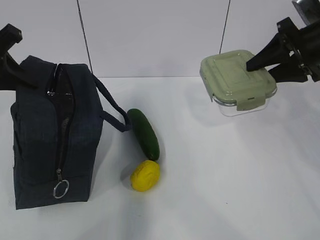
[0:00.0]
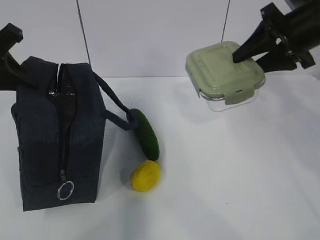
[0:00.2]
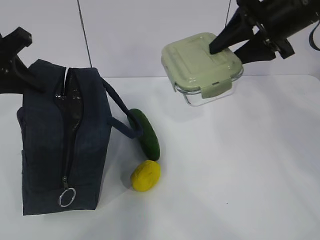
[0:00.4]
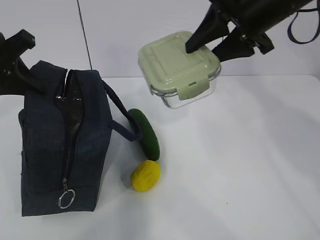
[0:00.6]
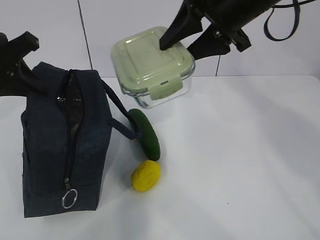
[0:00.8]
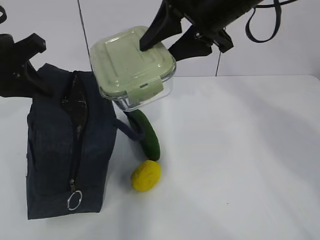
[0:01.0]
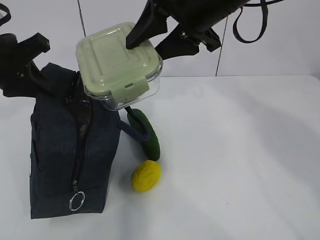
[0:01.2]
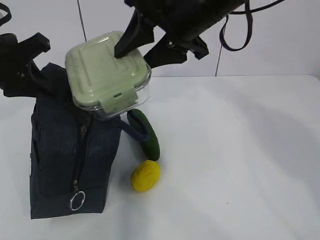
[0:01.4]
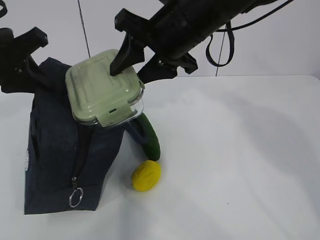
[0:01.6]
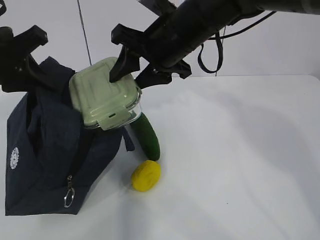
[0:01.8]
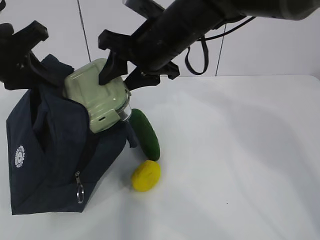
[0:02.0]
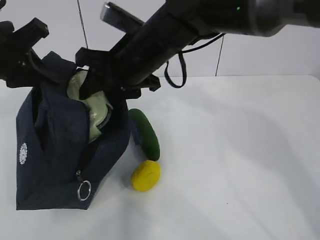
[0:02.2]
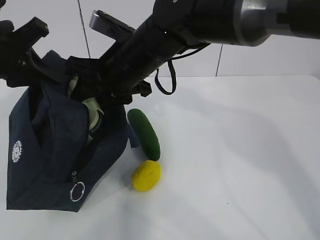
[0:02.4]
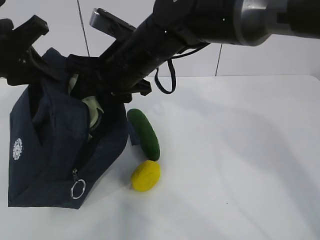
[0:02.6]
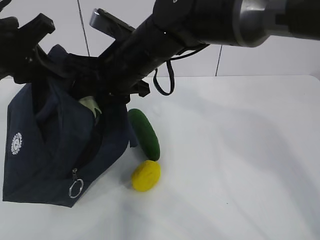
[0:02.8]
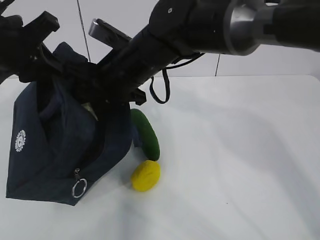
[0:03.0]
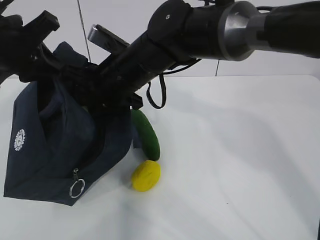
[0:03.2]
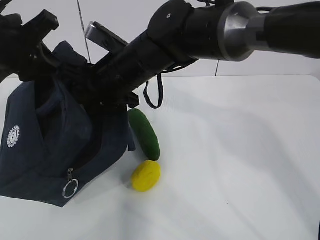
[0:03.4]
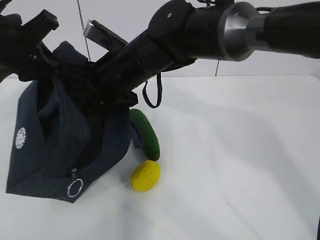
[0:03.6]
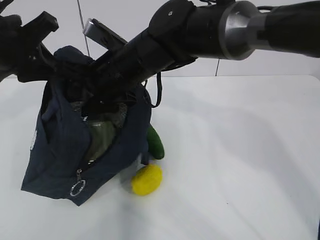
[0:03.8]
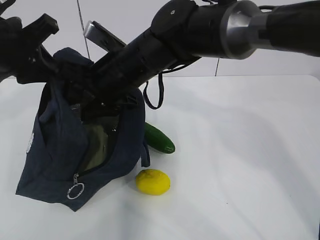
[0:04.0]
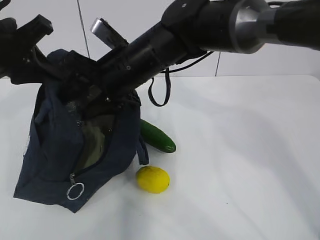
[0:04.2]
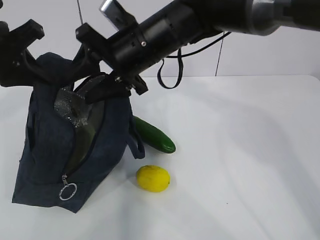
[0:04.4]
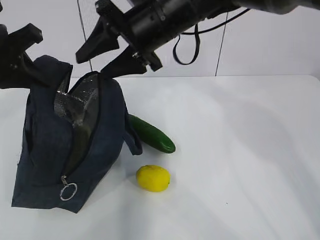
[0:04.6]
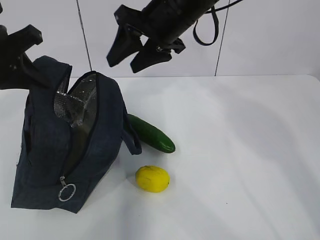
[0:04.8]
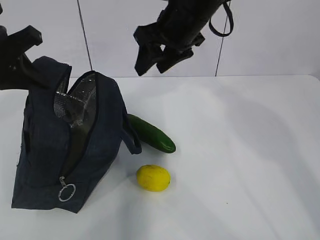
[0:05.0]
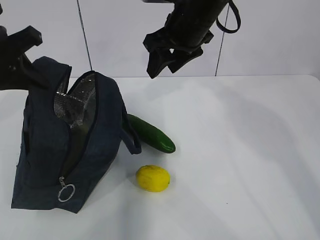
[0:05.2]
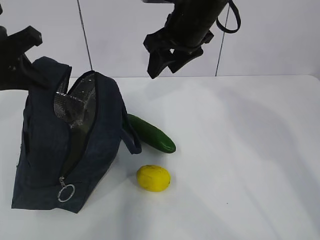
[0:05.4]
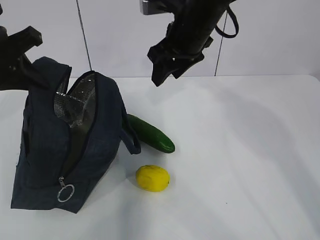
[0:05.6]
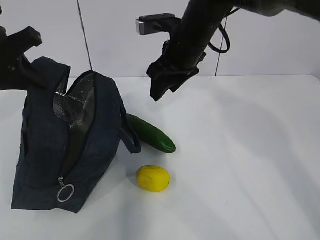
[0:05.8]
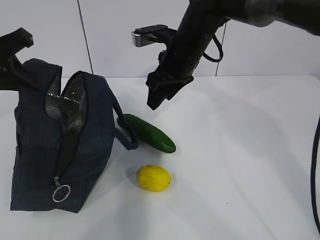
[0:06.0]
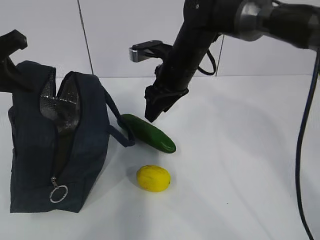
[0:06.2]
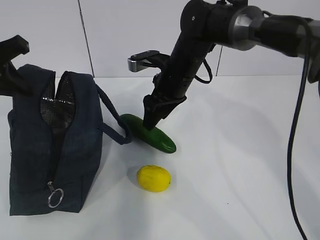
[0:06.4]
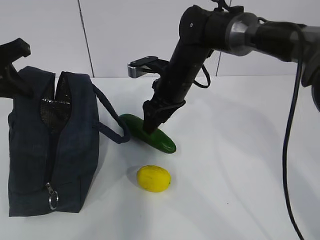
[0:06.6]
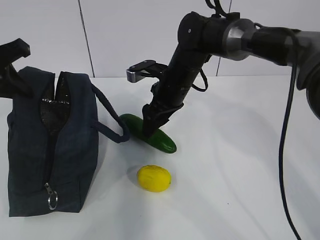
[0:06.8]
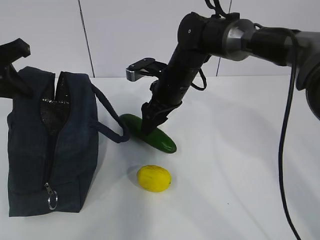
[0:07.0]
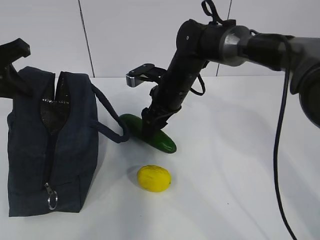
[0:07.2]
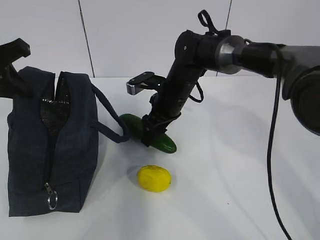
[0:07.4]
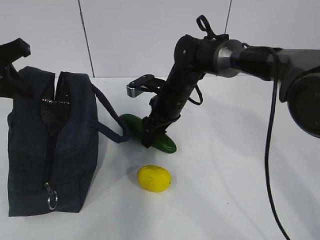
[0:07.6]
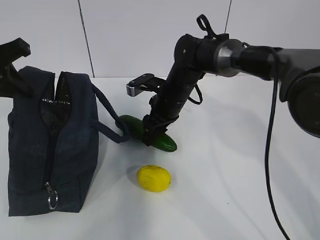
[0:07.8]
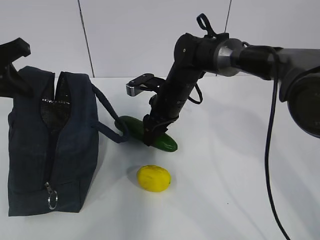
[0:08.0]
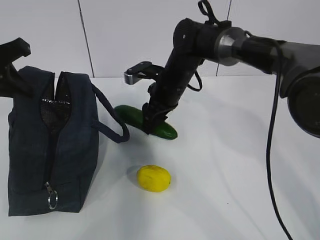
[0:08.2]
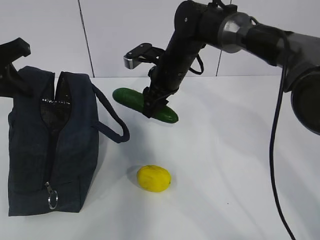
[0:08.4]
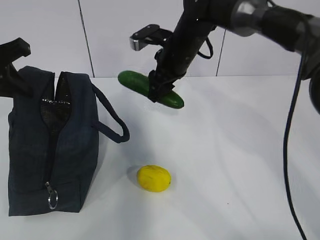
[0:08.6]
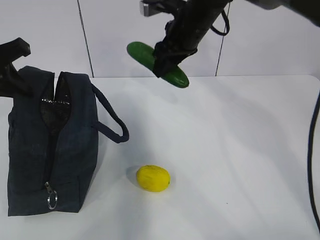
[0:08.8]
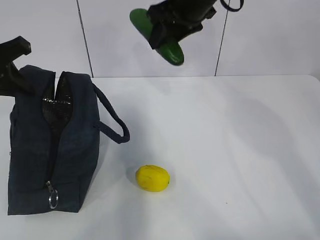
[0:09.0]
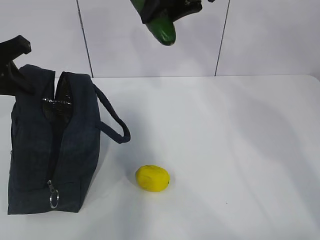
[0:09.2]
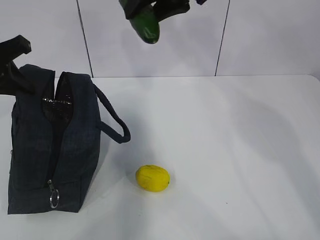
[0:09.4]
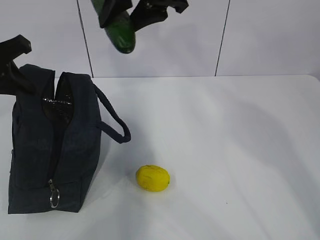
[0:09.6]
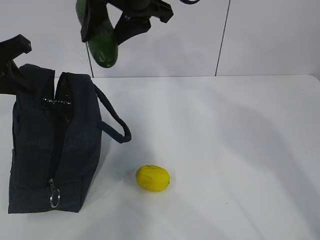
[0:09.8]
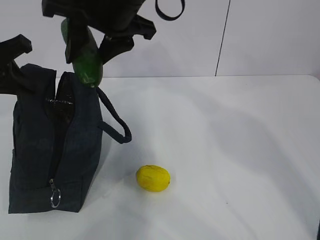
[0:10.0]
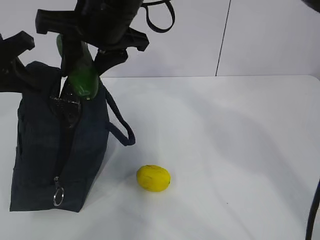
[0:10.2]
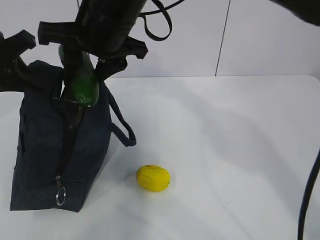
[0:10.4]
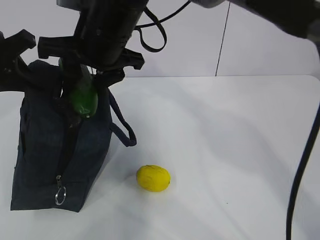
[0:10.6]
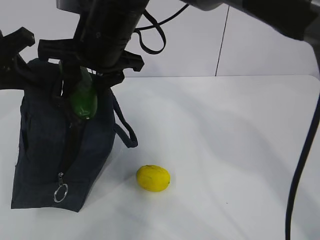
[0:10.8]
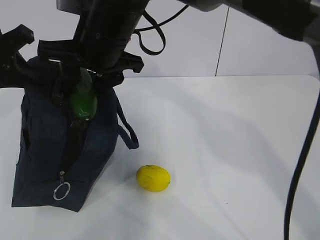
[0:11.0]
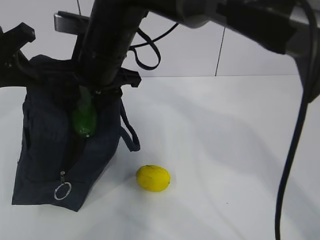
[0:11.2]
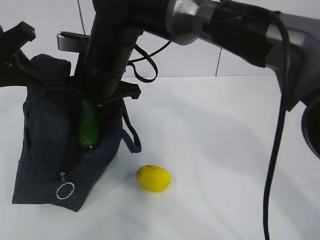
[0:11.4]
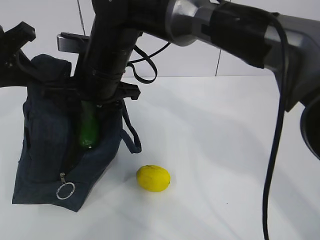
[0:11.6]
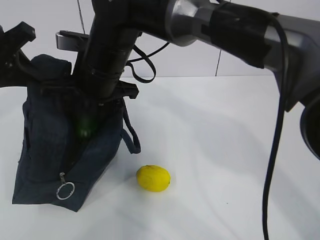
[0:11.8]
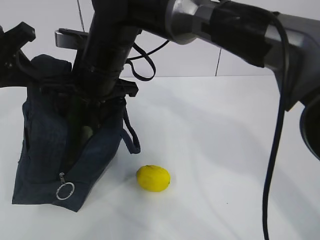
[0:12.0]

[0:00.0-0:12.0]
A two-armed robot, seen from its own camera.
Step, 0:00.0 to 0:02.2: Grab the cucumber with your right hand.
Step, 0:02.6 to 0:05.8: Place it into the bag with your right hand.
Step, 0:06.0 to 0:09.6: Grab the lemon with your right hand.
0:00.0 to 0:01.6: The right gripper travels to the left by approximately 25 cm.
0:01.6 to 0:03.0: The right gripper travels to the left and downward by approximately 10 cm.
0:04.4 to 0:06.0: The right gripper heads to the right and forward, covering about 10 cm.
0:06.0 to 0:07.6: The right gripper heads downward, covering some 10 cm.
0:07.6 to 0:09.0: The right gripper goes about 20 cm upward.
0:09.0 to 0:10.4: The right gripper shifts roughly 15 cm to the left and backward.
0:10.4 to 0:12.0: The right gripper moves downward, roughly 5 cm.

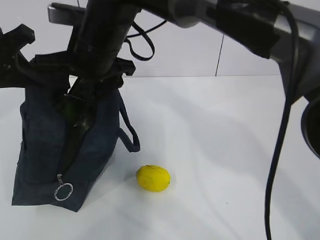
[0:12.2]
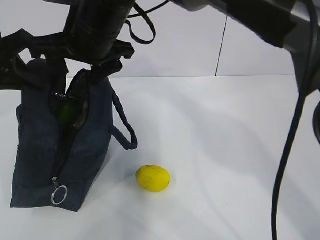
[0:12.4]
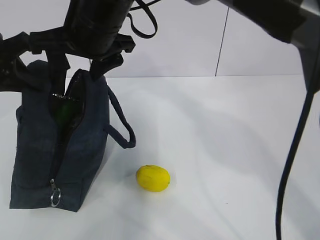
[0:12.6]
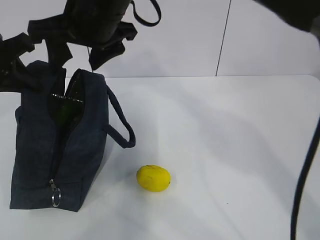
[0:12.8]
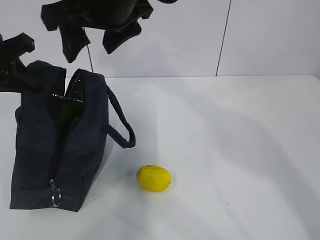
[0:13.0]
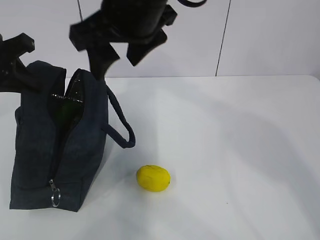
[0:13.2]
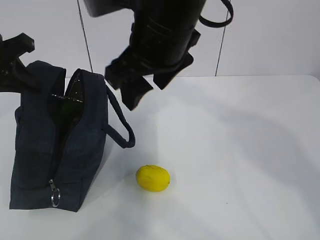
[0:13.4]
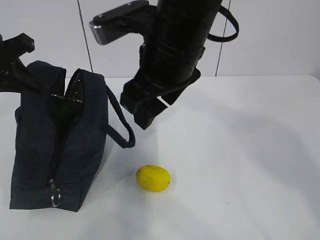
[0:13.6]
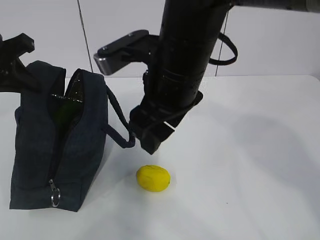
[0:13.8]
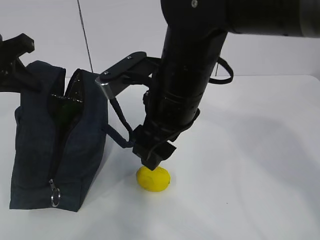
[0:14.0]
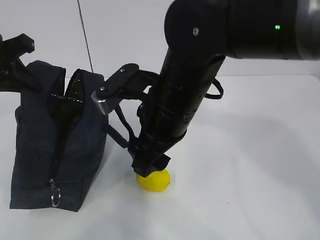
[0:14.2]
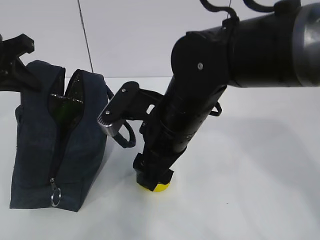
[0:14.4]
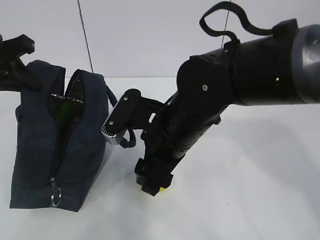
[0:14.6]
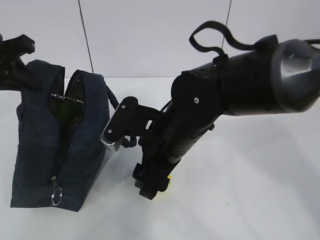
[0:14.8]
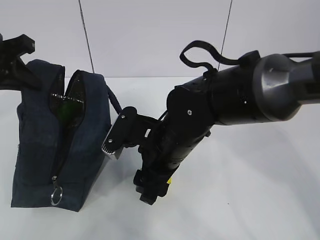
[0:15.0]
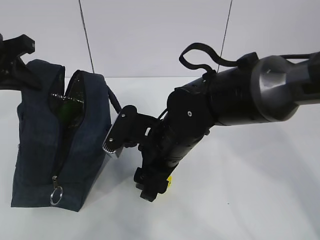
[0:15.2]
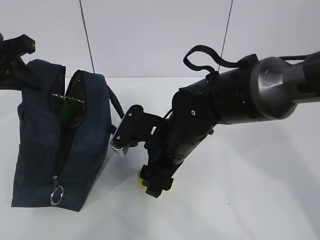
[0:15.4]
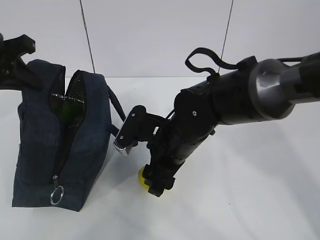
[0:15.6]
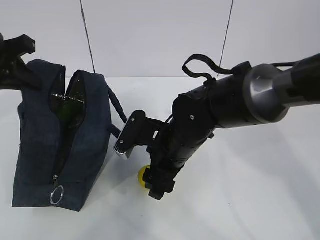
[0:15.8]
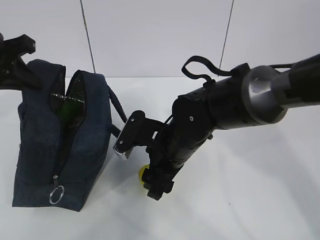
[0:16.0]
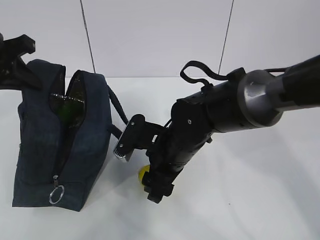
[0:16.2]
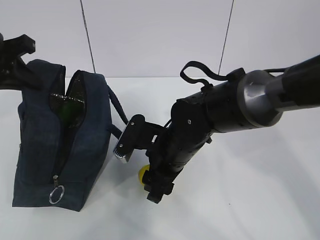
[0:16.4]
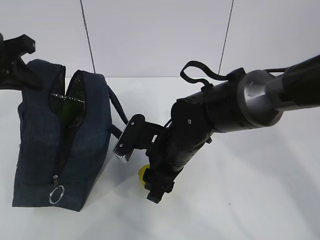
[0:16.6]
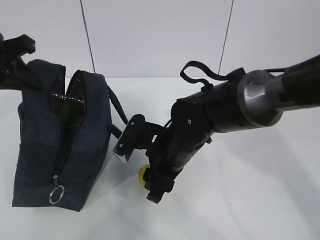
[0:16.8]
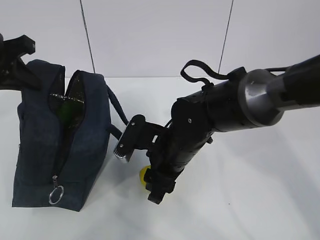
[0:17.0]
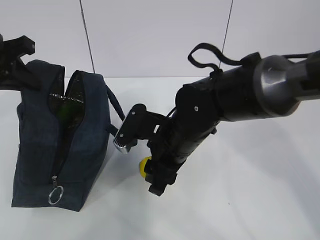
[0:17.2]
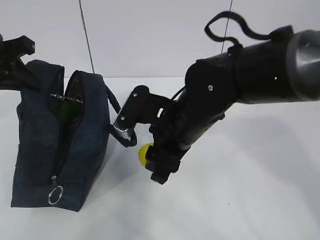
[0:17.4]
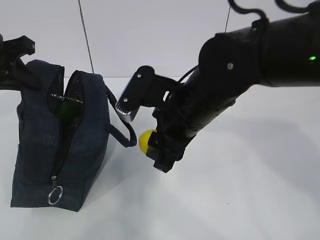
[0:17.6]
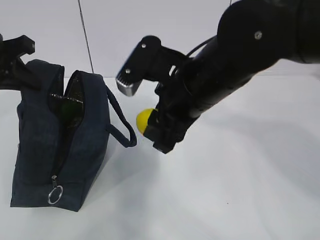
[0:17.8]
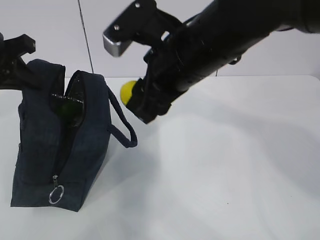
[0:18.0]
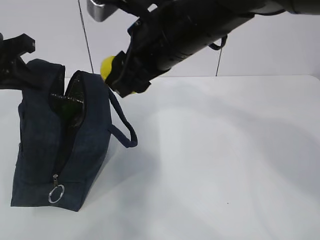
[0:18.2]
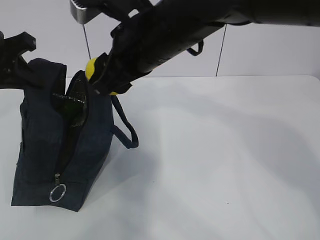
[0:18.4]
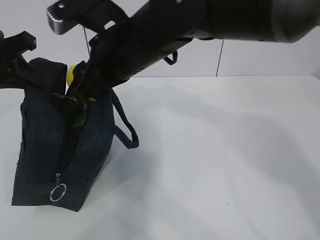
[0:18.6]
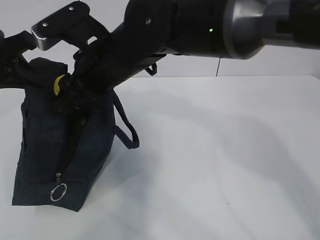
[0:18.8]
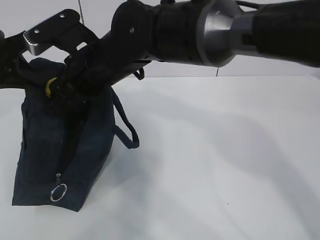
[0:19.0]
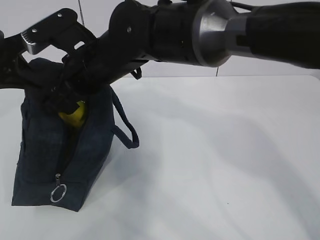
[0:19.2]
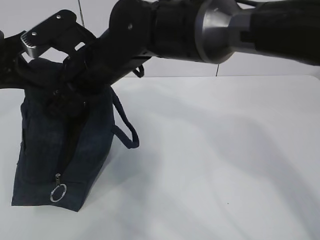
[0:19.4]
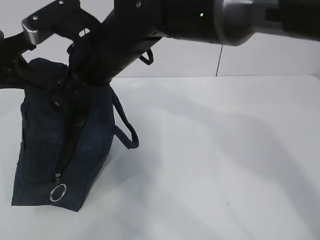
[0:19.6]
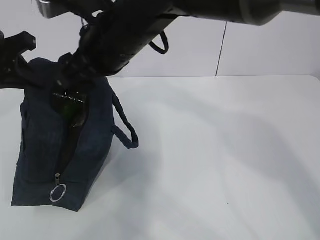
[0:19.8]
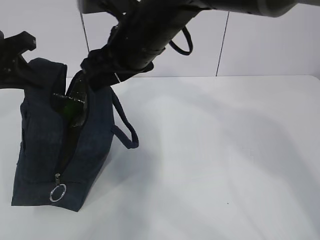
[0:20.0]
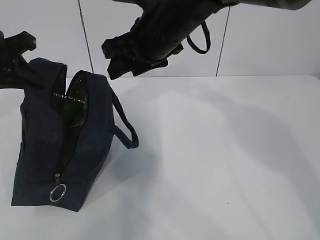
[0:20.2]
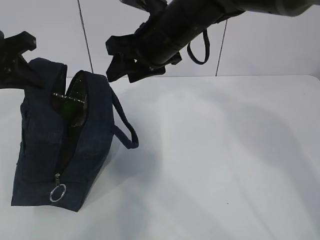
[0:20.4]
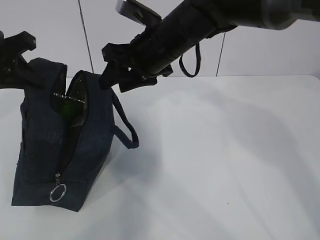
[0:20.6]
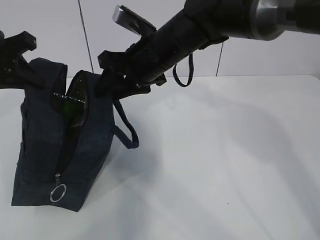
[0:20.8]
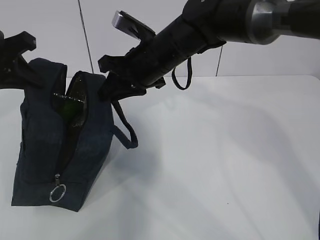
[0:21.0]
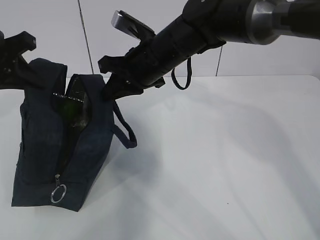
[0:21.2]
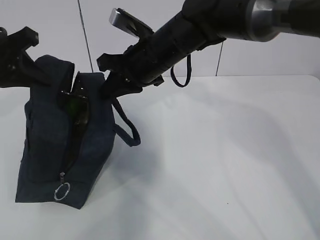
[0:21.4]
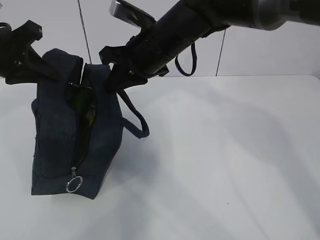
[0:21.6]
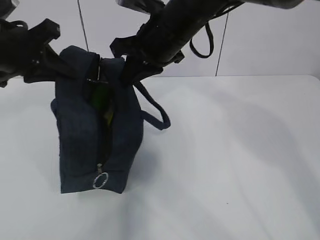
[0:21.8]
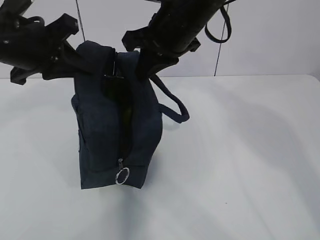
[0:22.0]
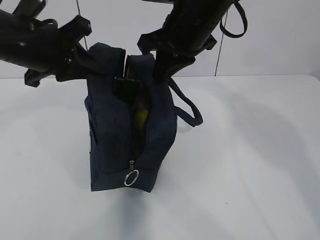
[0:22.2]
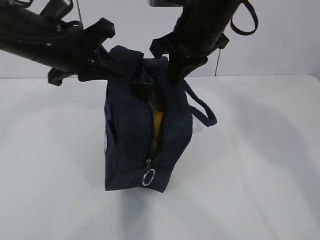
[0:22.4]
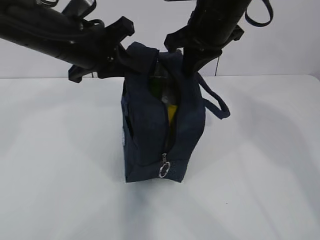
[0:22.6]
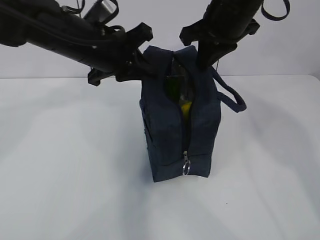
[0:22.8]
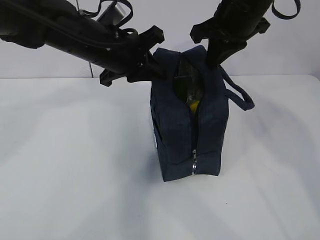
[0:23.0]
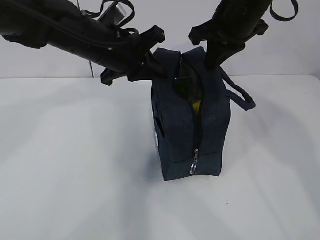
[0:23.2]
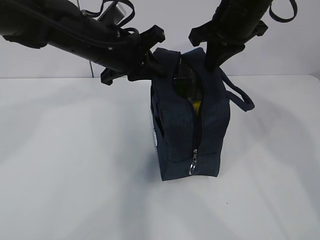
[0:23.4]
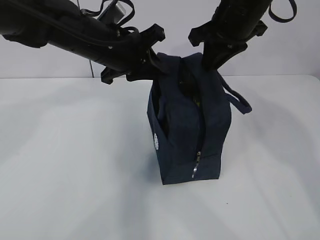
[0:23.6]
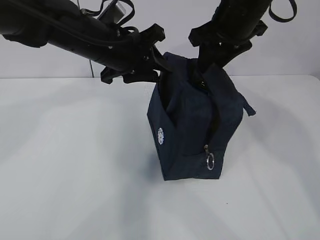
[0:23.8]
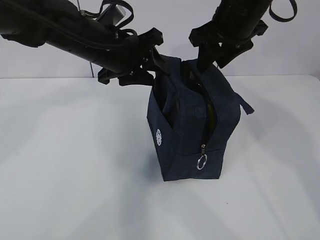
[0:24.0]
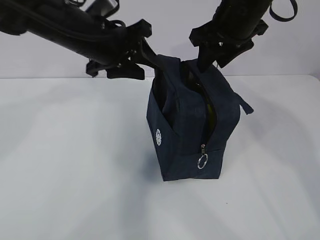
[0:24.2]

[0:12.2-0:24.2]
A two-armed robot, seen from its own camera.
Step, 0:12.2 to 0:13.4: Grab the lunch bag with your right hand.
Step, 0:13.6 to 0:15.8: Move the lunch bag to the right.
0:12.2 to 0:13.8: The right gripper shifts about 10 cm to the right and backward.
0:13.8 to 0:15.2: The right gripper goes roughly 15 cm downward.
0:15.2 to 0:16.6: The grippers stay close to where they were, moving slightly.
0:16.6 to 0:18.2: The right gripper shifts about 20 cm upward.
0:18.2 to 0:19.8: The right gripper travels to the left by roughly 5 cm.
0:19.8 to 0:21.2: The right gripper is displaced forward, downward and to the right by some 10 cm, and closes.
0:21.2 to 0:22.6: The left gripper goes roughly 15 cm to the right; the right gripper shifts about 10 cm to the right and upward.
0:22.6 to 0:24.2: The right gripper opens up, while the left gripper opens.
